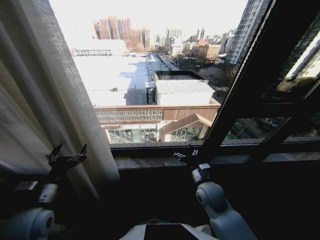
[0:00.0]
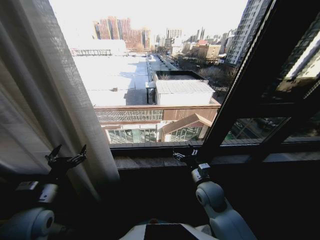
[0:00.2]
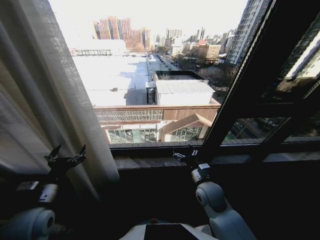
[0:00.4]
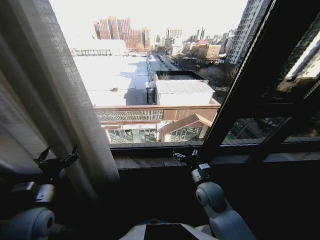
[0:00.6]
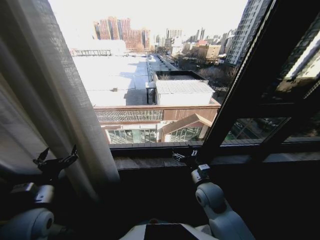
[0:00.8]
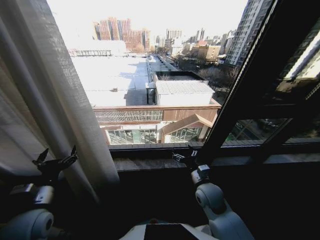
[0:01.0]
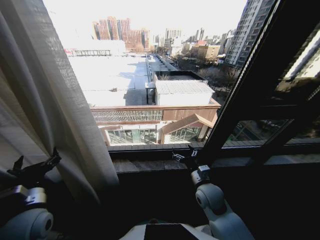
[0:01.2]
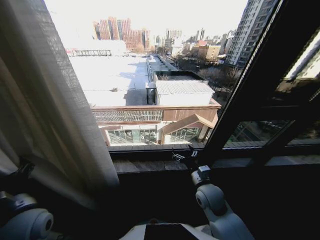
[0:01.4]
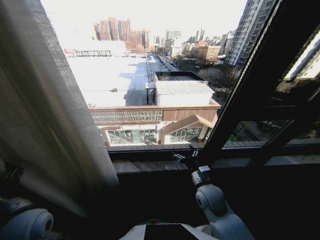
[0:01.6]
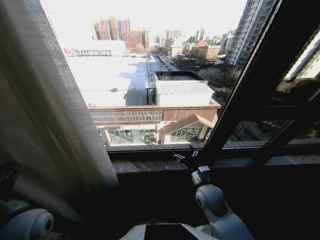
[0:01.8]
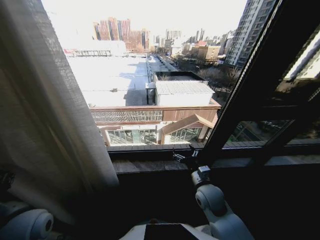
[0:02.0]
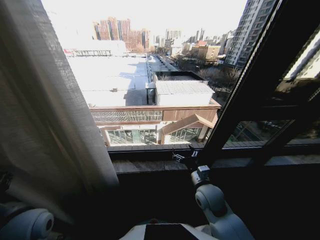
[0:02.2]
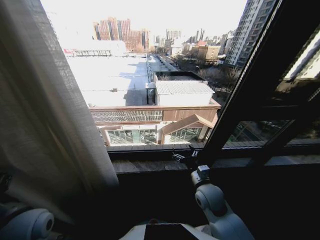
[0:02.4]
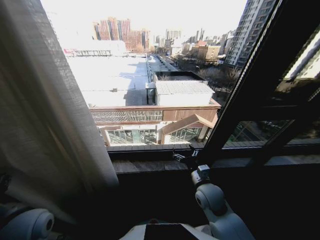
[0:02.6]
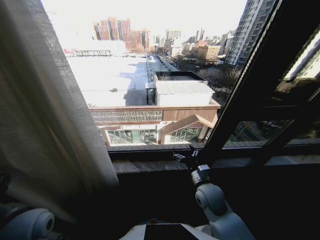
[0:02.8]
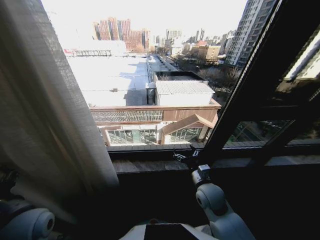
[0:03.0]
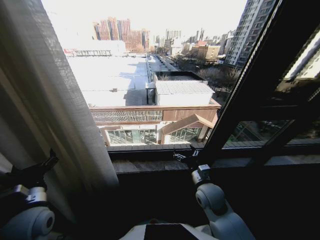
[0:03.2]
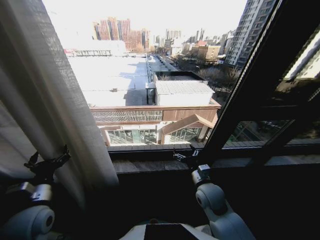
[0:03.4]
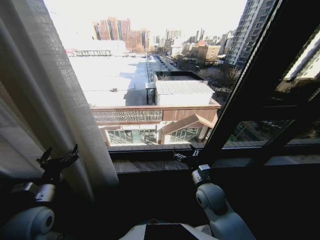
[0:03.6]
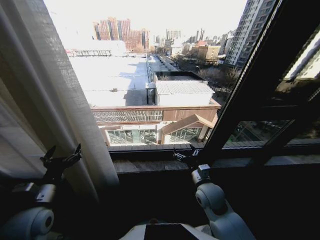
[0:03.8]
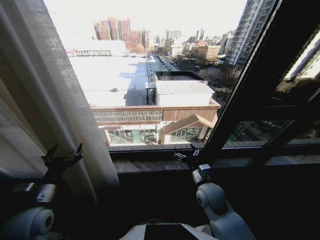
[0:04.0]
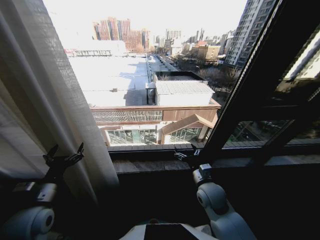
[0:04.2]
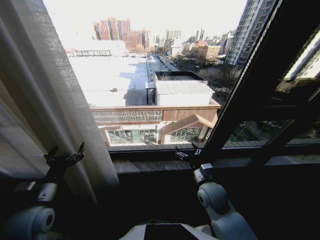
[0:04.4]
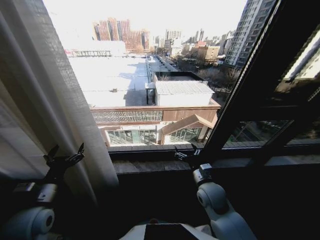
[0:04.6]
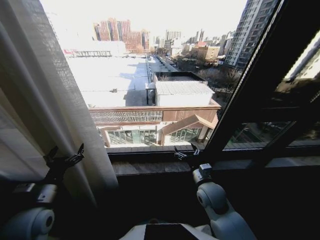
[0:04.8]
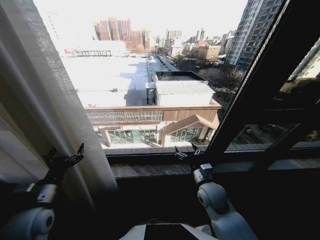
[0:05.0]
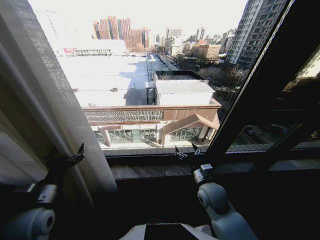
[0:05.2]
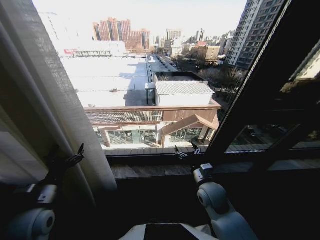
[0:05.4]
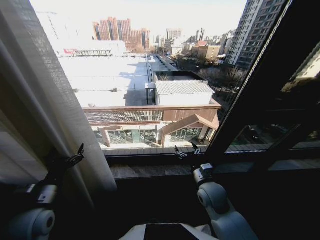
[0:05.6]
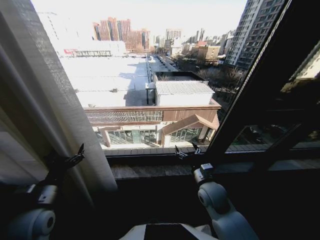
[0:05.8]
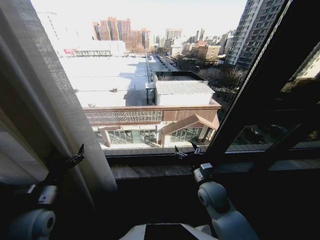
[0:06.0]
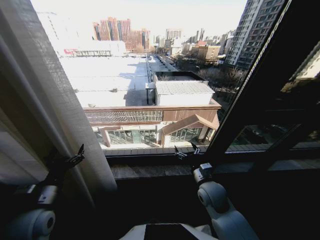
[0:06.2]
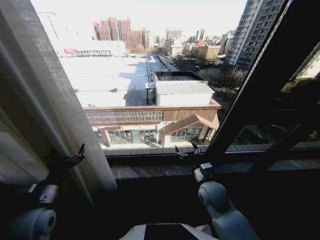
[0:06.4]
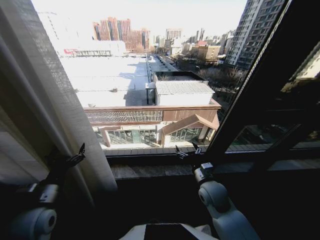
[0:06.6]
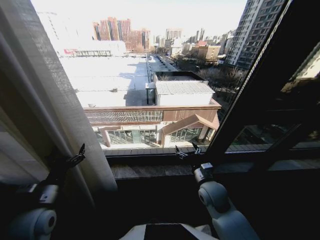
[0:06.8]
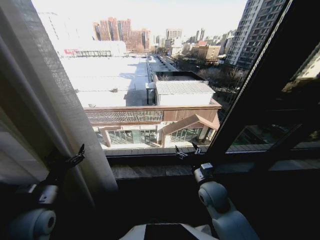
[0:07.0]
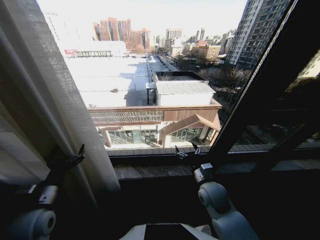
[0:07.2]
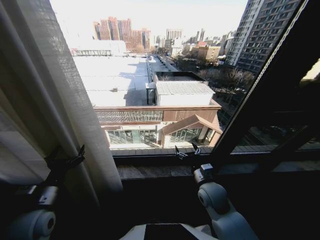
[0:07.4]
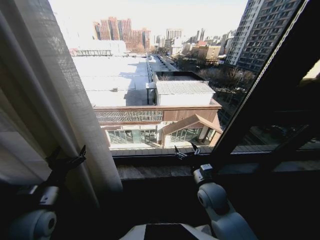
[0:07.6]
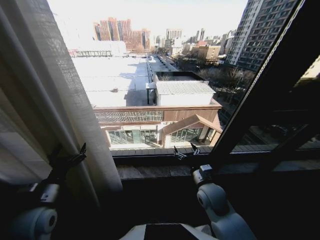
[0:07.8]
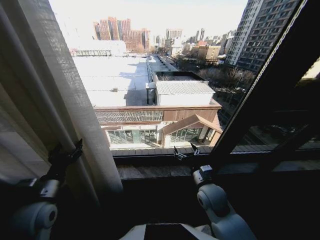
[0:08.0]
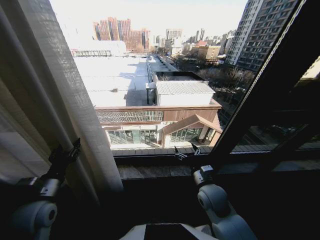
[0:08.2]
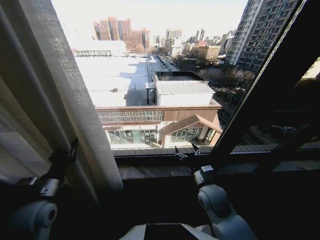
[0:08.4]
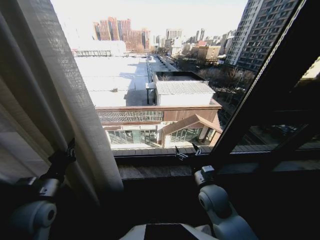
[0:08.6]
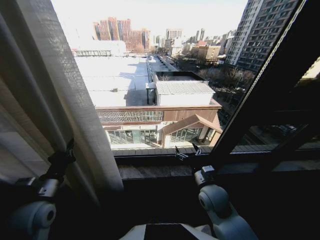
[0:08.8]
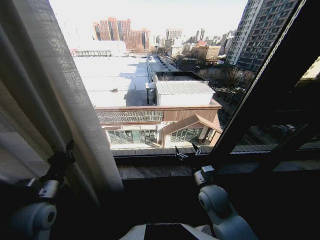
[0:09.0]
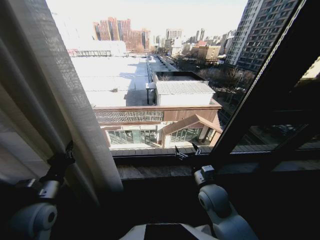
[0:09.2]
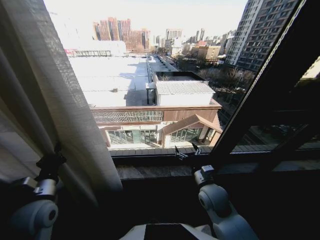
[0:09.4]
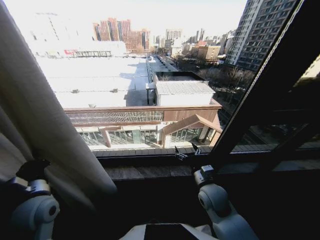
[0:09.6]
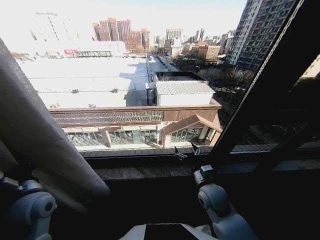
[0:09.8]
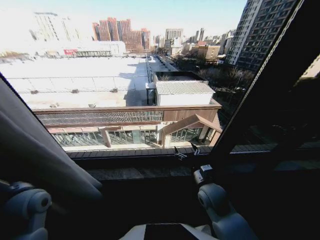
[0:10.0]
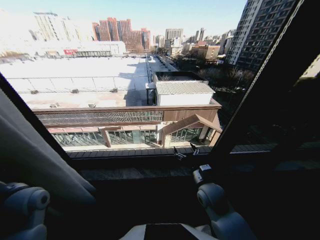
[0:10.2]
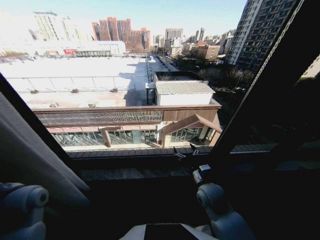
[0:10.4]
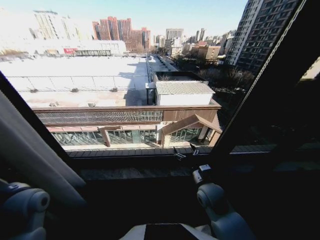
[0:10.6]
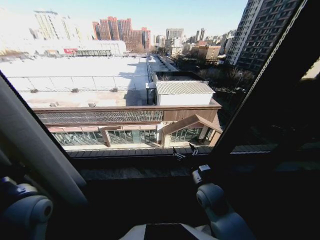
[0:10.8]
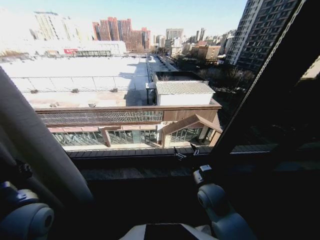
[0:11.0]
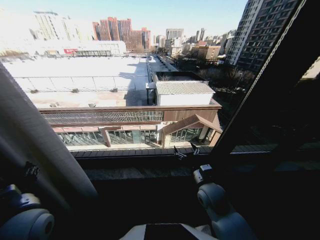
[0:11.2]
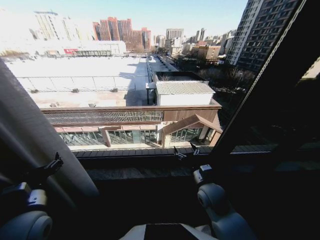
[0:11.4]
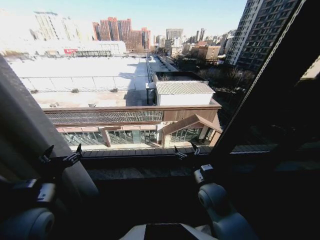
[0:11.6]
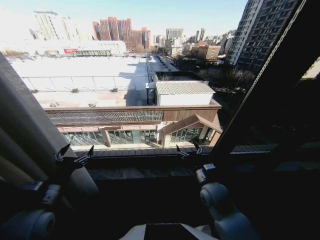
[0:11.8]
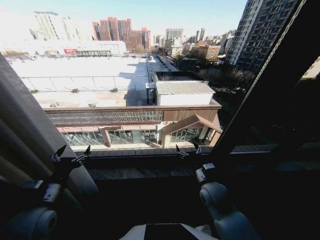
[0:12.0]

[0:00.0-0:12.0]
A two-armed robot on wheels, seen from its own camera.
Task of the whole recording: Open the curtains by pulling them apart, changing their state from closed to fully open.
0:01.6 to 0:03.0: The grippers make only small movements.
0:04.4 to 0:07.6: The two grippers keep their place.
0:07.6 to 0:09.0: The left gripper closes up.
0:09.0 to 0:10.4: The left gripper is displaced to the left by about 5 cm.
0:10.4 to 0:12.0: The left gripper heads to the right and backward, covering about 10 cm, and opens up.

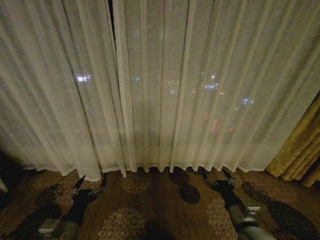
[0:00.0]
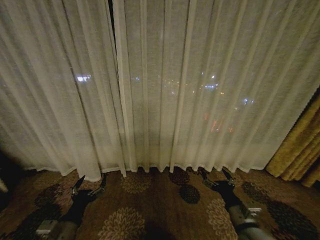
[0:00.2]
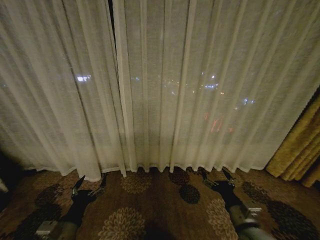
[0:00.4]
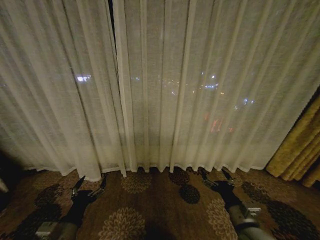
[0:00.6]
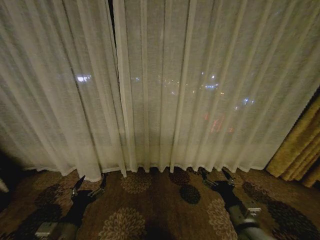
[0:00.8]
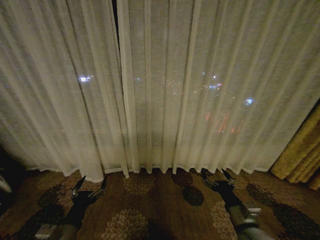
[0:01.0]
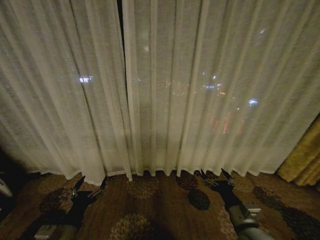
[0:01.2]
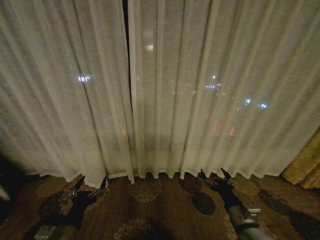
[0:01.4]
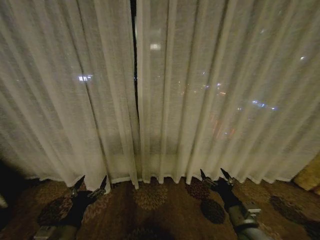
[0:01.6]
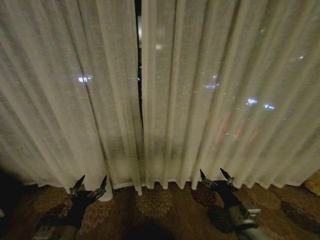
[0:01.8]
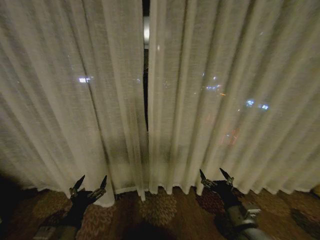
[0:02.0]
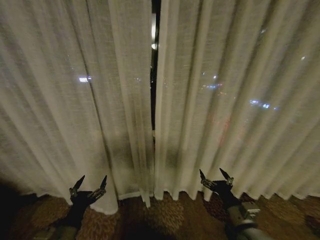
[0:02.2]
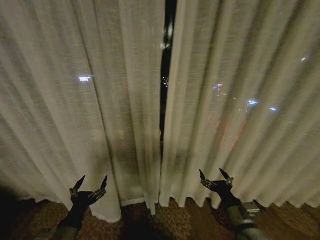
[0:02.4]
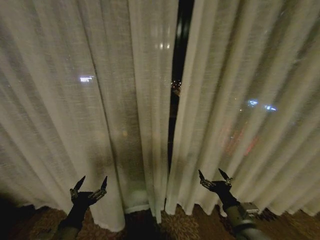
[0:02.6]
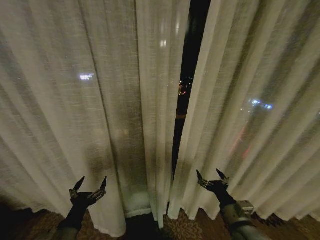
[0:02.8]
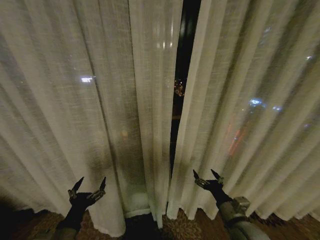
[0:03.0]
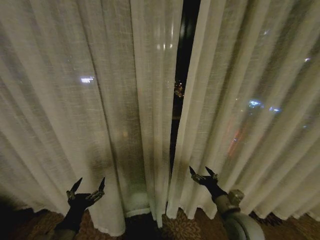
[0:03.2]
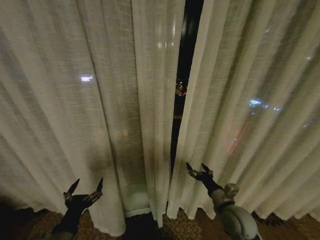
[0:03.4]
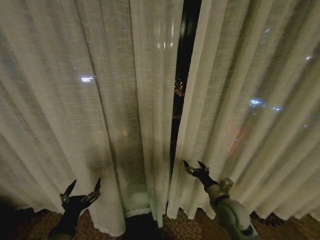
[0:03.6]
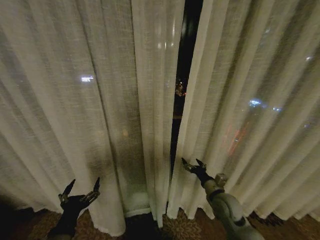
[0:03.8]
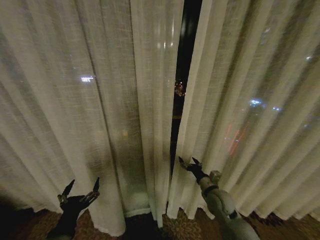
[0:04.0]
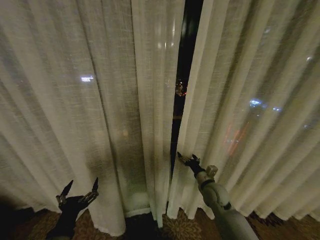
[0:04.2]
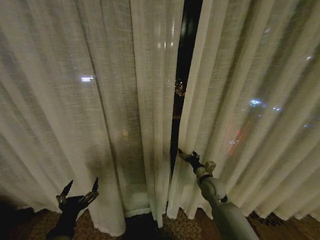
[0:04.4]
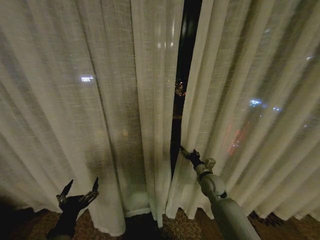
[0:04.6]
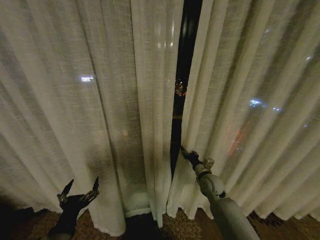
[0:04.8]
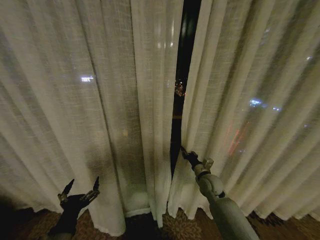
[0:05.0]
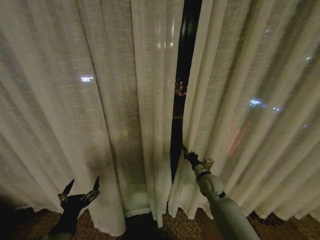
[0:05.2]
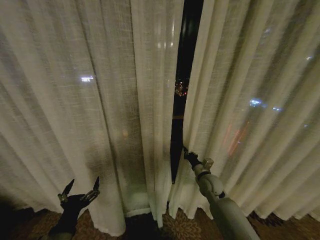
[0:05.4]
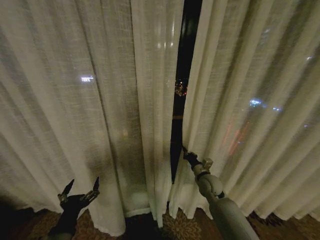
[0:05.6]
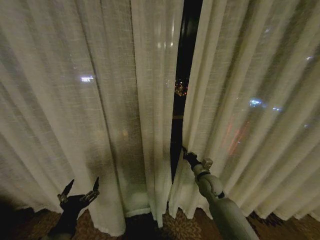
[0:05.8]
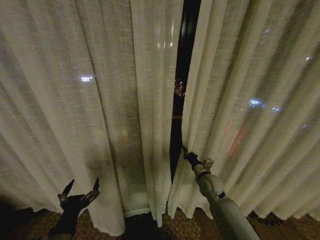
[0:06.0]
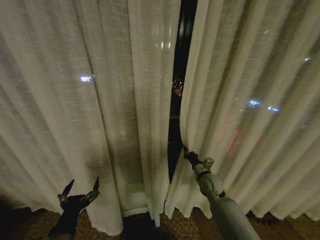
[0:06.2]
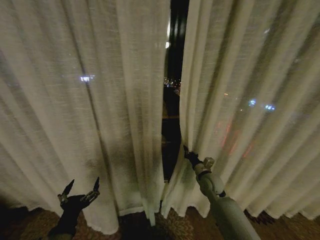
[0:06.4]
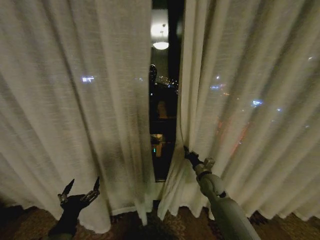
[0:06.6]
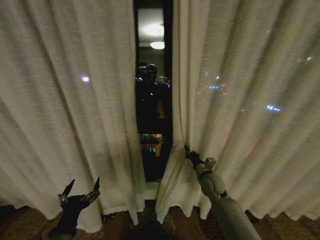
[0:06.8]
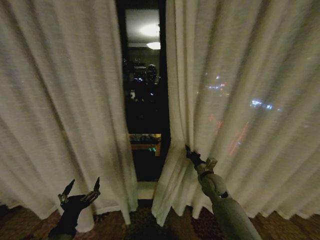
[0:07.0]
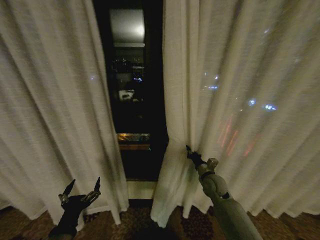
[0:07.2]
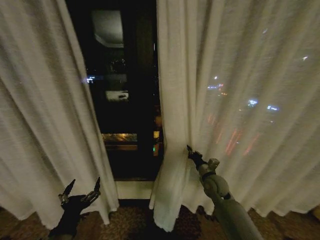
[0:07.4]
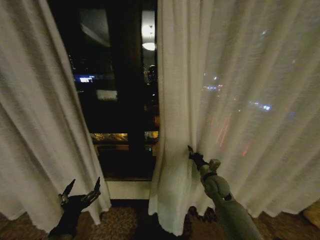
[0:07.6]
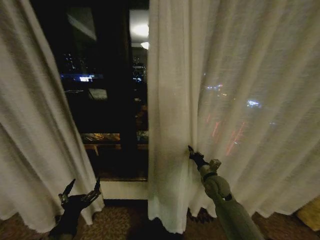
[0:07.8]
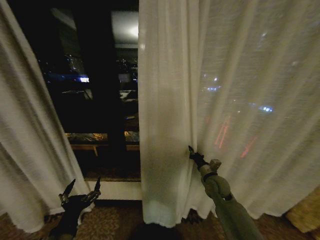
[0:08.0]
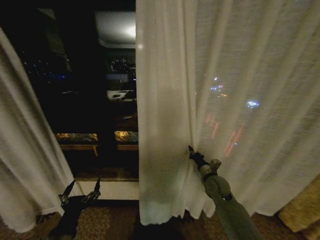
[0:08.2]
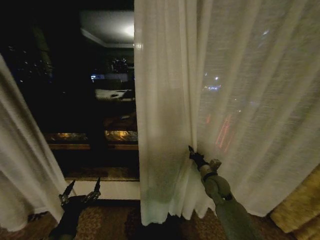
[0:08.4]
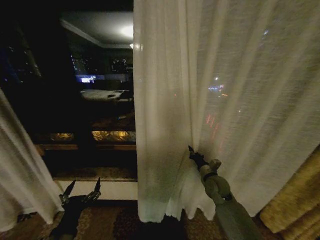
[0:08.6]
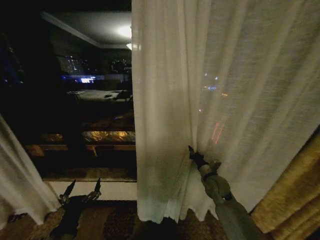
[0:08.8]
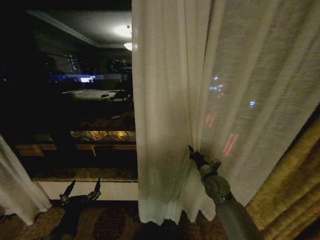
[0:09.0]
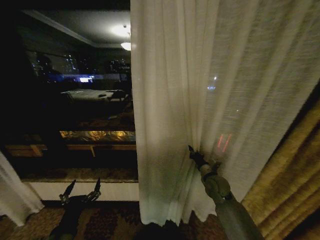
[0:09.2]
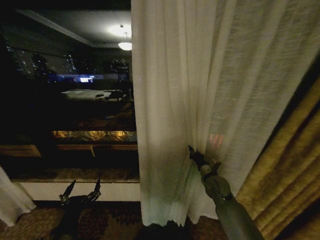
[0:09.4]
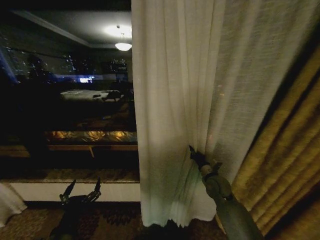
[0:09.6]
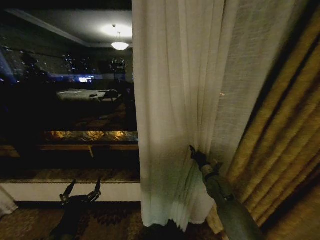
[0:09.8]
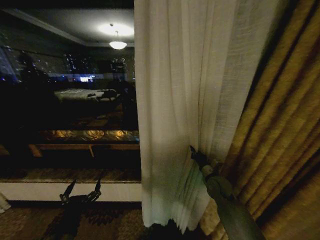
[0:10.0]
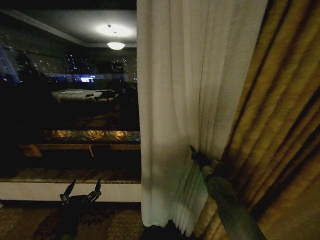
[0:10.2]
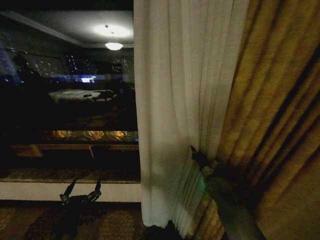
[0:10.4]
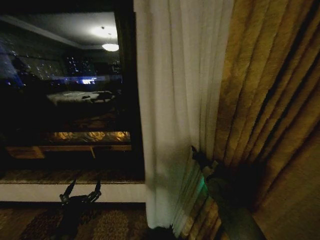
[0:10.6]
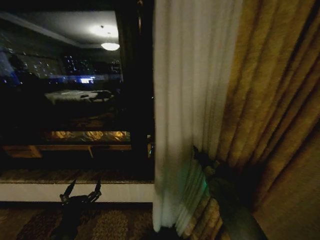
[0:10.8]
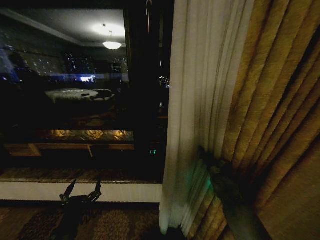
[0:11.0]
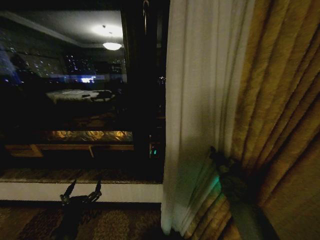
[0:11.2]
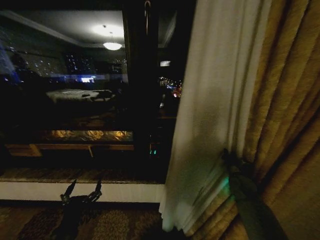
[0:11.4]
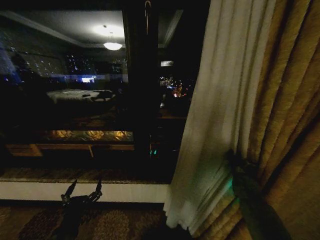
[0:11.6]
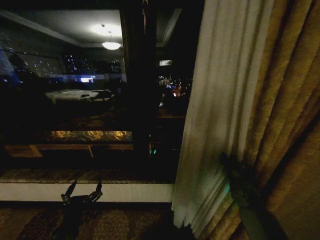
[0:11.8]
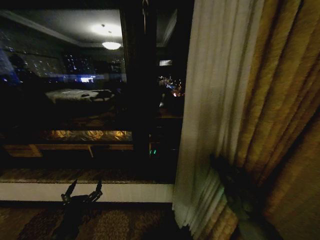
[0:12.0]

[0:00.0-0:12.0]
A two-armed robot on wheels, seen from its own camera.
Task of the whole recording: Open the curtains by pulling them apart, changing their state from closed to fully open.
0:03.0 to 0:04.4: The right gripper moves forward, approximately 20 cm.
0:04.4 to 0:06.0: The right gripper closes up.
0:10.4 to 0:12.0: The right gripper heads to the right and backward, covering some 10 cm.
